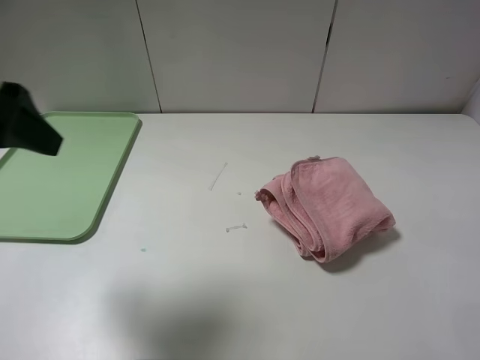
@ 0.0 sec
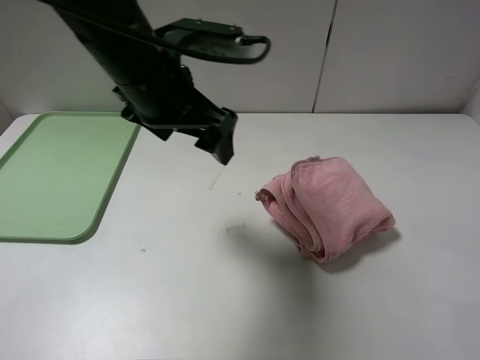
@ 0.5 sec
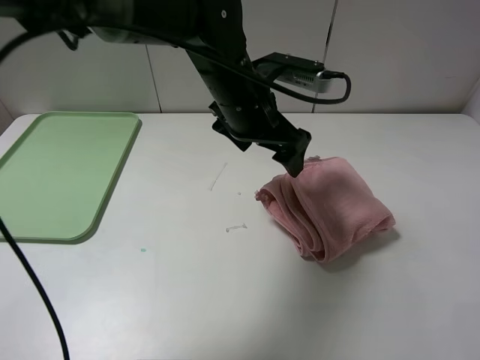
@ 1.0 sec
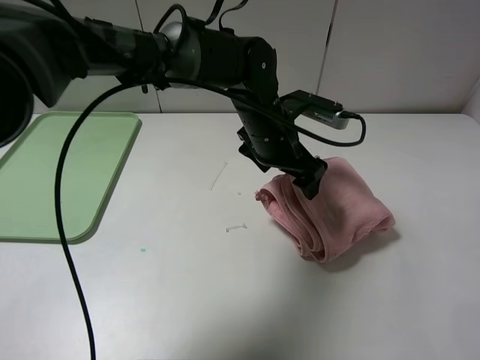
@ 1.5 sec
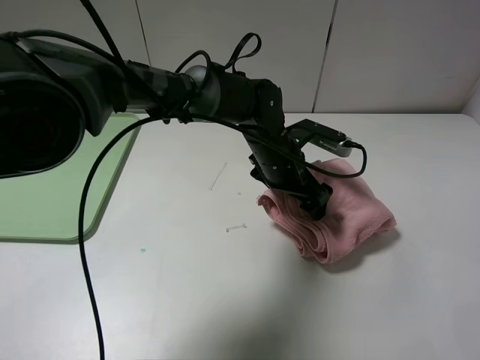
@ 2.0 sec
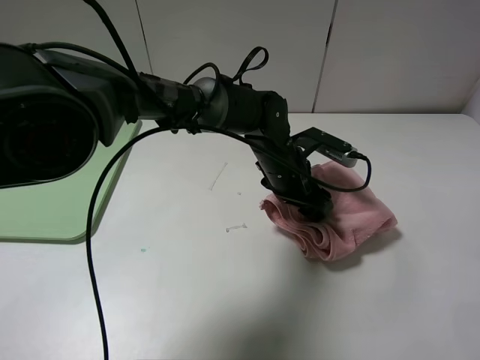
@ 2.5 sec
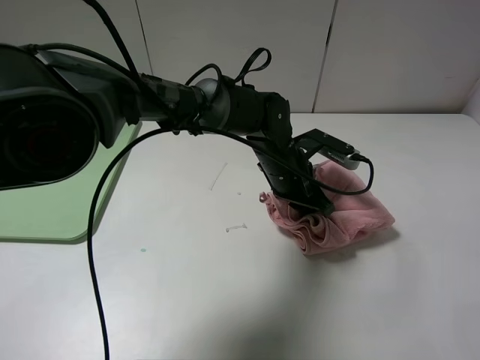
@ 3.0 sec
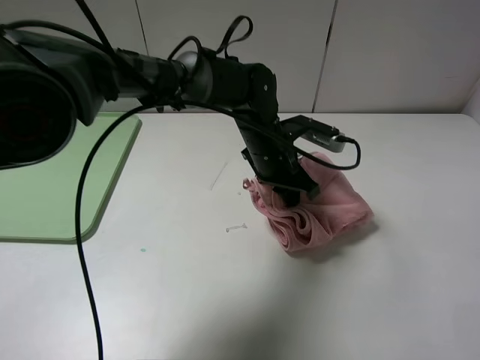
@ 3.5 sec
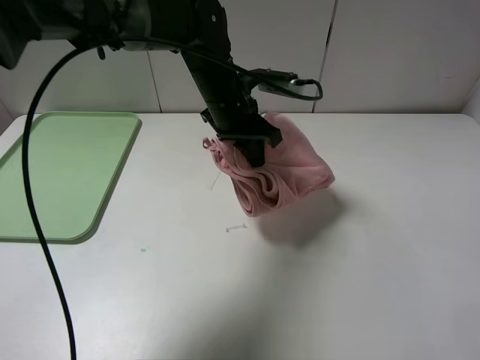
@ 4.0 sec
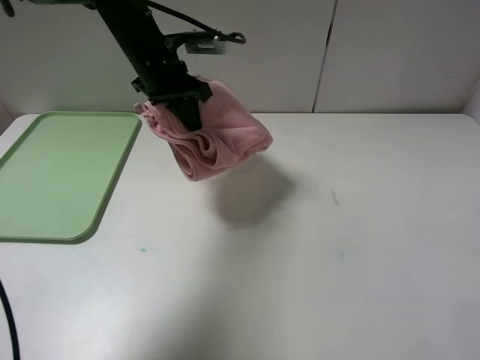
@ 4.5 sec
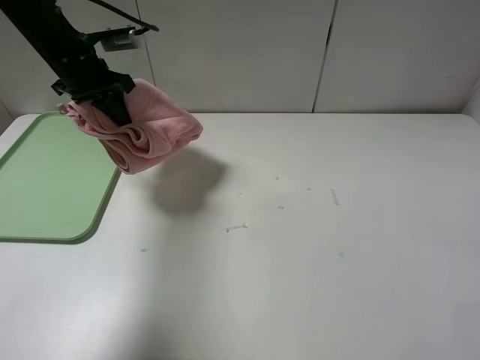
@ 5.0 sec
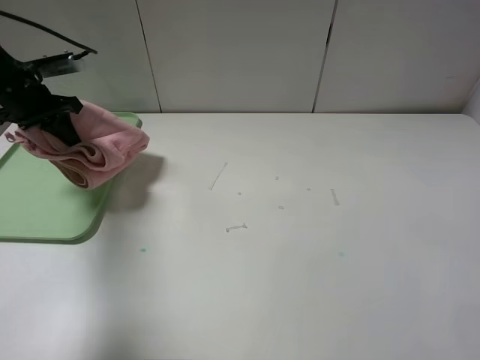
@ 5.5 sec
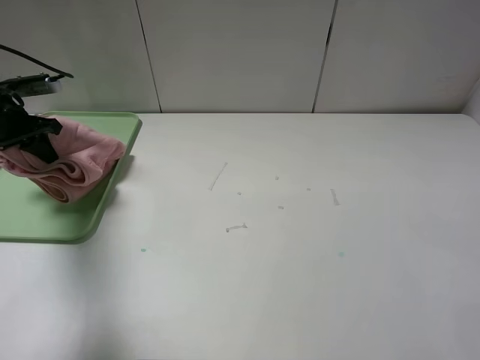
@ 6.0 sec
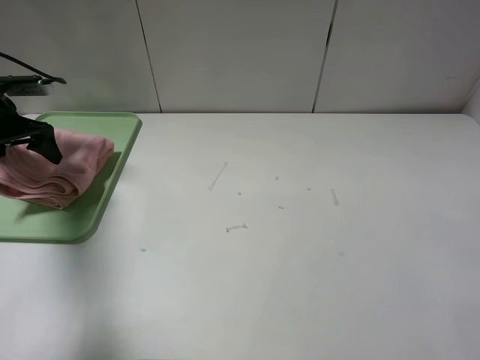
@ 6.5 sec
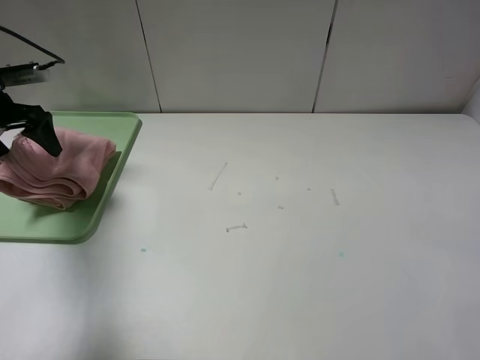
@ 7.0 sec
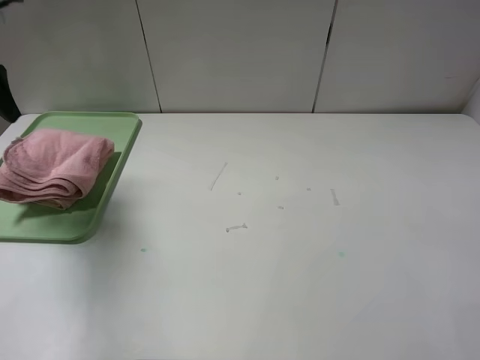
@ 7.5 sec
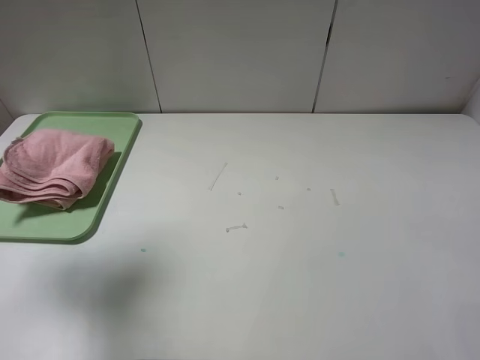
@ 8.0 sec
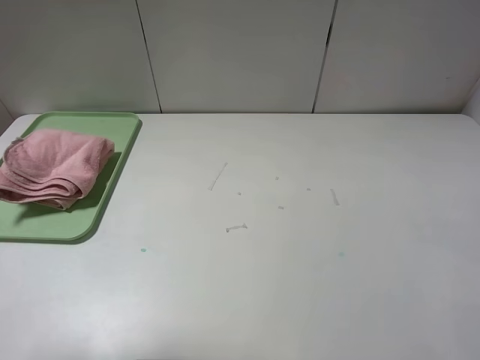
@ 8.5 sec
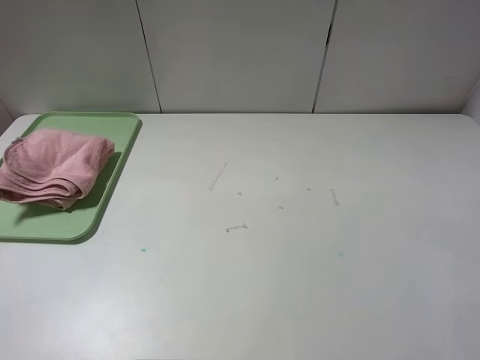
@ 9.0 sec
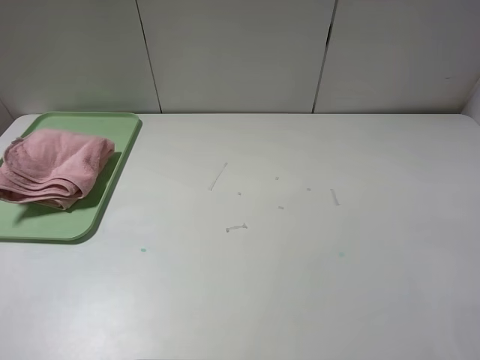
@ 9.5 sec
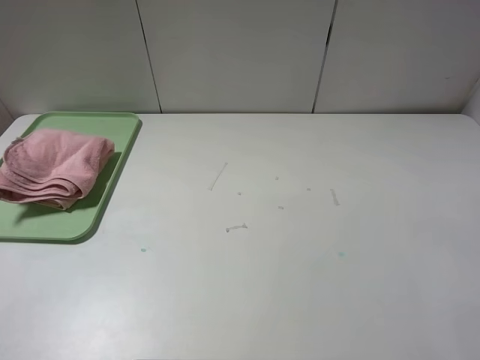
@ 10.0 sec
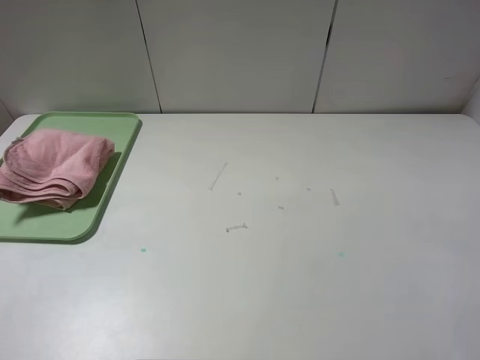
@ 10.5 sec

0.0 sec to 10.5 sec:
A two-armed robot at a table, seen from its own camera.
Step, 0.0 sec to 7.0 sec: Place the folded pink towel on the tray with the left gripper.
0.0 sec to 2.0 sec: The left gripper is displaced to the right, downward and forward by about 40 cm.
2.0 sec to 4.0 sec: The left gripper moves to the left and upward, about 10 cm, and closes its fingers.
4.0 sec to 6.5 sec: The left gripper travels to the left by roughly 40 cm, and opens.
6.5 sec to 8.5 sec: The left gripper heads backward and upward, covering about 35 cm.
8.5 sec to 10.5 sec: The left gripper heads backward and downward, covering approximately 15 cm.
